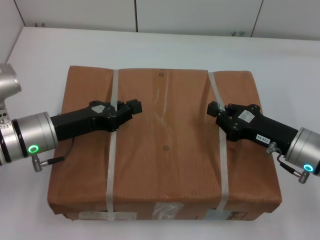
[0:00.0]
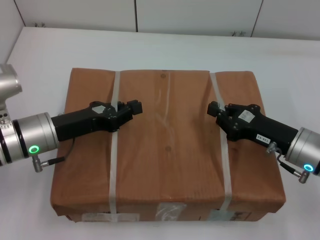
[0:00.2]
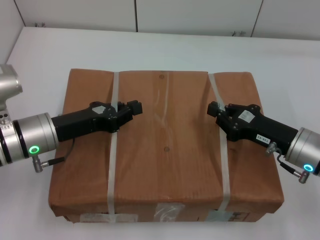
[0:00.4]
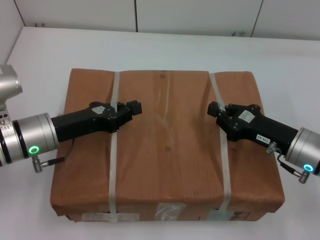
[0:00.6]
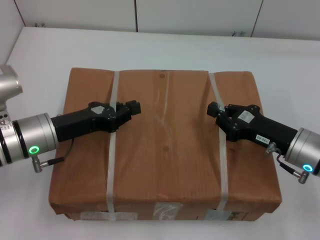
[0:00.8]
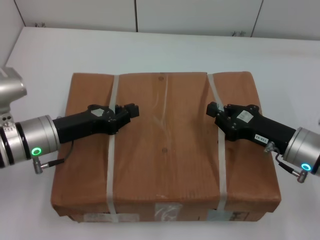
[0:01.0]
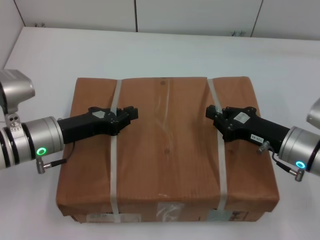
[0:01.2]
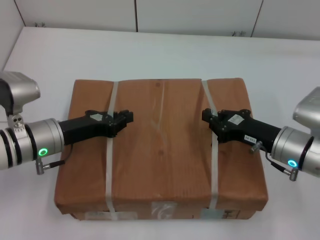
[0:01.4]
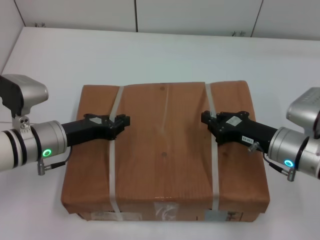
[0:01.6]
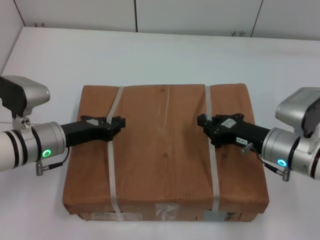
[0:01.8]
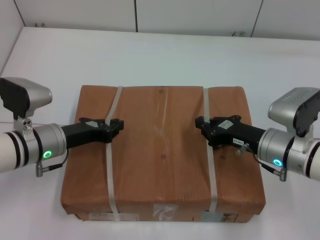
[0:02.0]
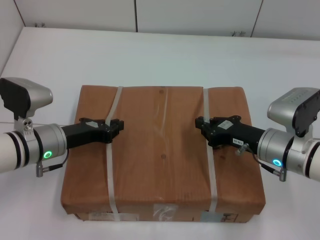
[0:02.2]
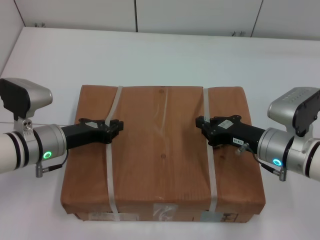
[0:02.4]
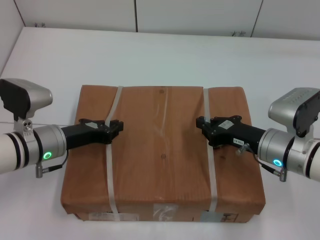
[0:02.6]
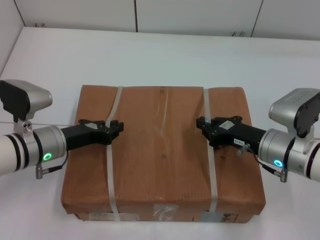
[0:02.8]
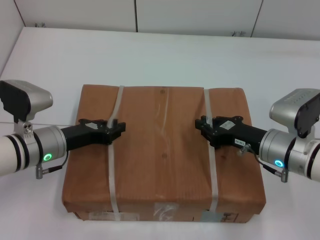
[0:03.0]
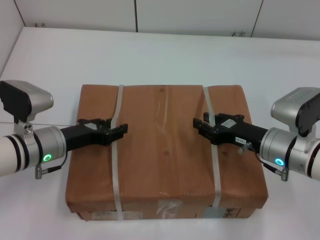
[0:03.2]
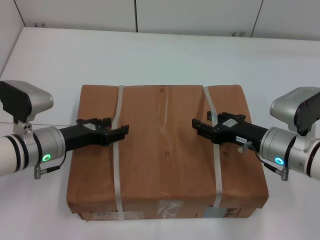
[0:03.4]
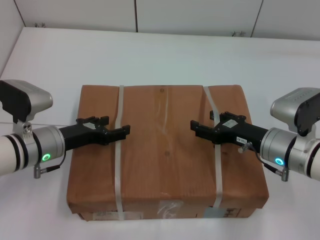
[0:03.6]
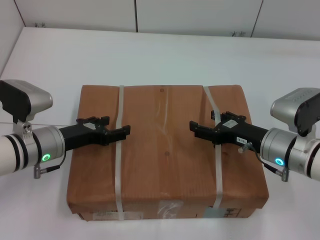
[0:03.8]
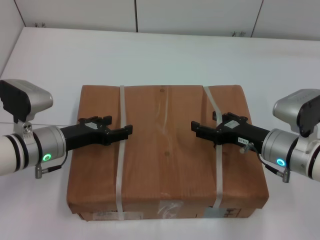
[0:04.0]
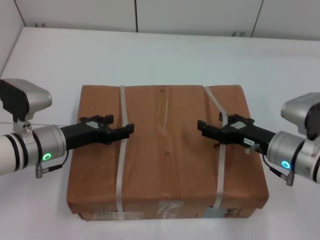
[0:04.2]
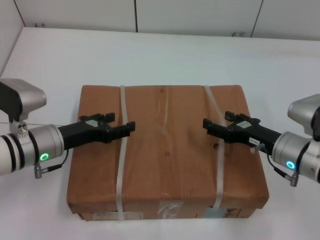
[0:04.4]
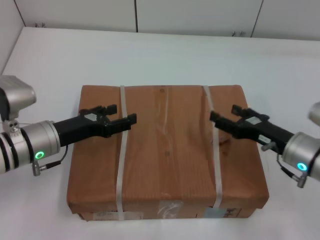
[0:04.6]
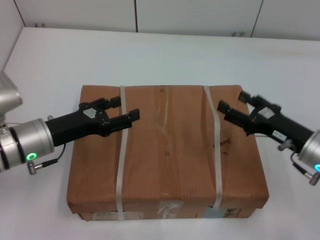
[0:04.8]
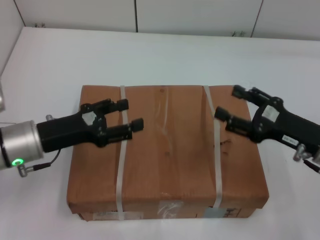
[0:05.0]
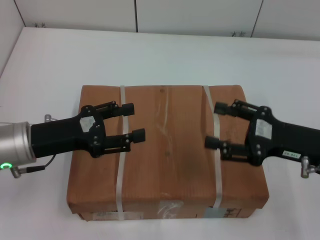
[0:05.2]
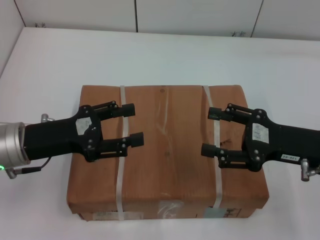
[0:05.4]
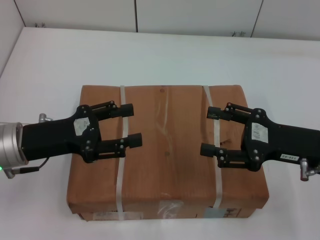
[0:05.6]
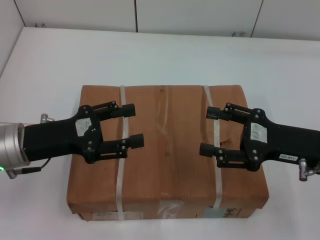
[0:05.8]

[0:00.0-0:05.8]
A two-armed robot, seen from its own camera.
Task of the whole recording: place the box on the table with both arms.
Step, 0:00.0 to 0:02.0: Place the box on the table with left gripper.
Step, 0:00.0 to 0:02.0: Place the box on the table with right gripper.
Step, 0:02.2 to 0:04.4: Loosen the box on the table with left gripper.
Step, 0:02.2 to 0:04.4: Loosen the box on the table with right gripper.
0:00.0 to 0:01.4: The grippers make only small movements.
0:01.4 to 0:02.8: There are only small adjustments of the grippers.
0:02.8 to 0:04.4: The left gripper opens up. The right gripper opens.
0:04.4 to 0:05.8: Both grippers travel together upward, roughly 5 cm.
